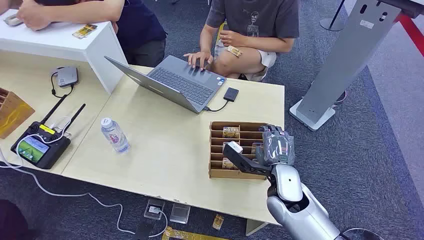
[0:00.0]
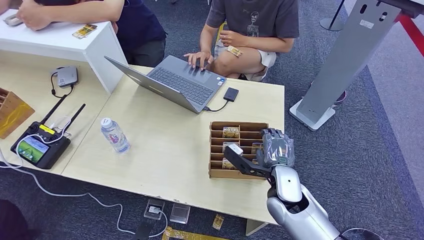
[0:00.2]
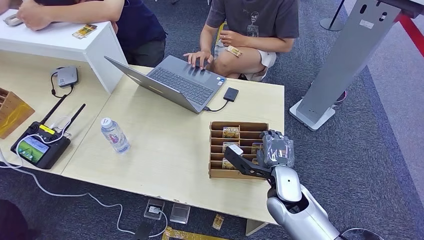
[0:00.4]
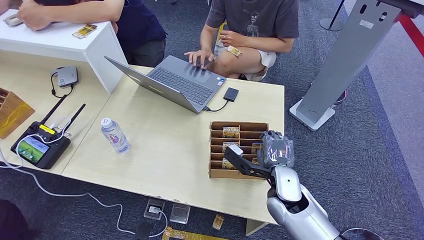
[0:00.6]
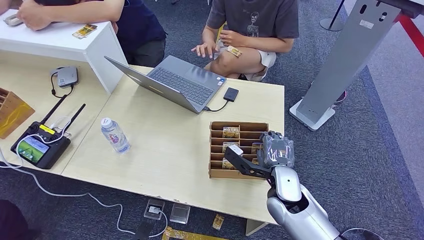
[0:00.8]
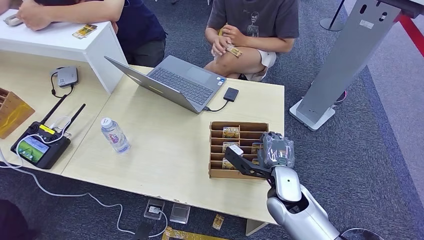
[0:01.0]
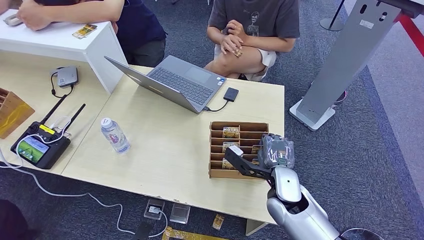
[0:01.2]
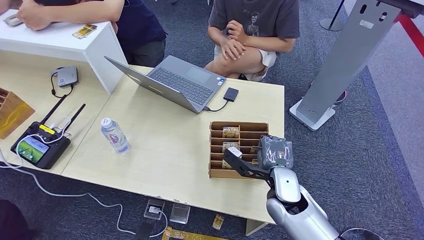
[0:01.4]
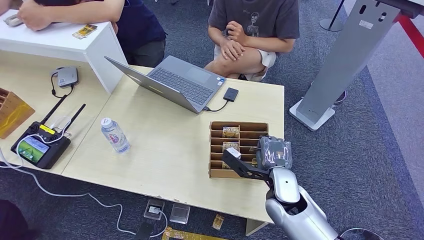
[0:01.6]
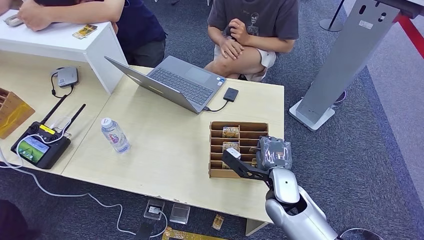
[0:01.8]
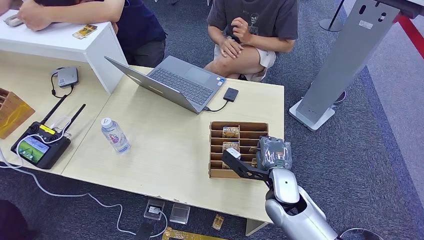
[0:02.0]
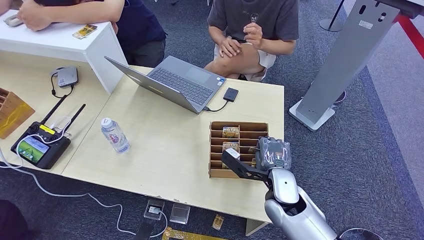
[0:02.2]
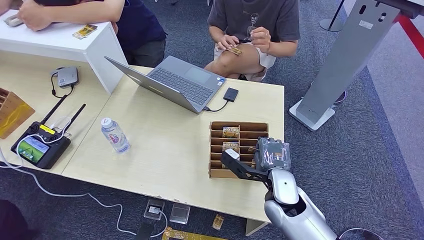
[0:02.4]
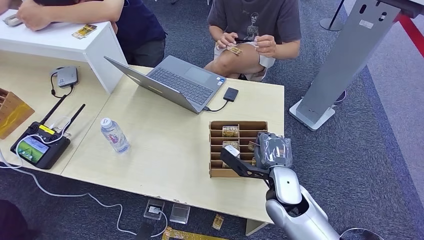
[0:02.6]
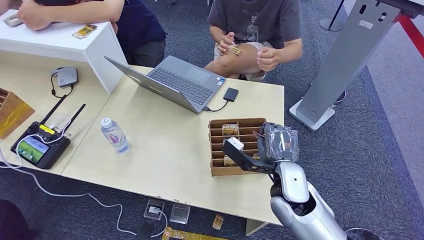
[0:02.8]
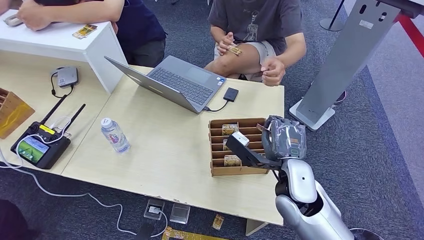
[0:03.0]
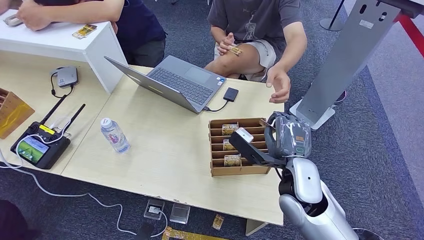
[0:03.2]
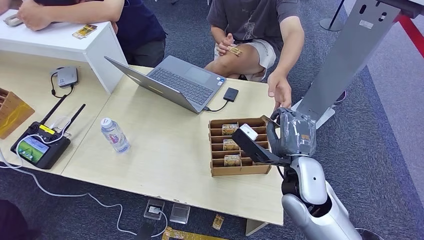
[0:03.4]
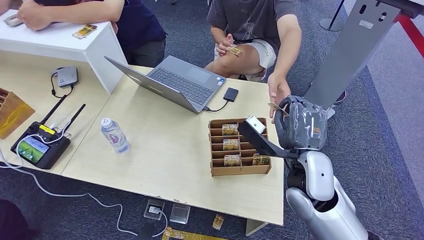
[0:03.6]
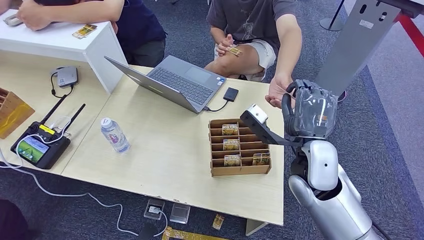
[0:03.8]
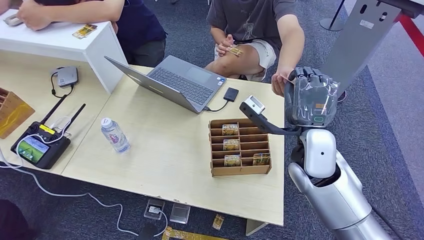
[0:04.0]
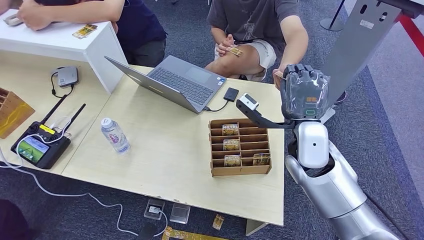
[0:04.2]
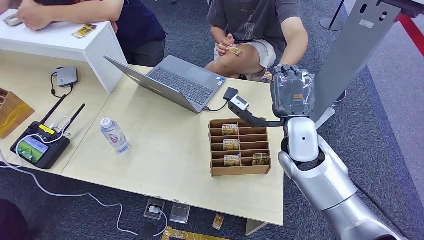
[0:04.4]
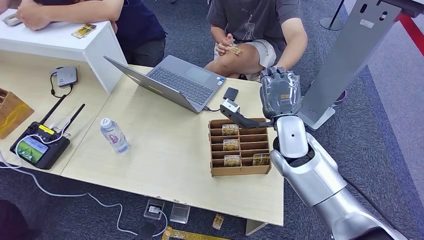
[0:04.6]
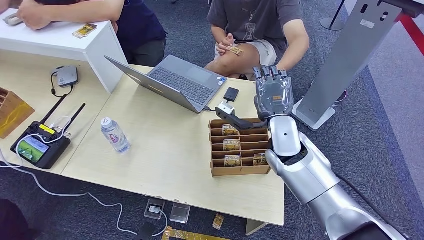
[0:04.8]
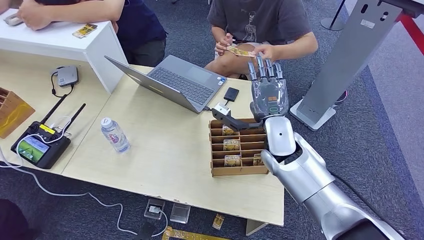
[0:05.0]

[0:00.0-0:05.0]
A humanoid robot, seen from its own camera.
Step, 0:00.0 to 0:03.0: Pick up the room card from the card holder.
Step, 0:03.4 to 0:05.0: Hand the room card to the target.
0:01.6 to 0:03.4: The right hand goes about 10 cm upward.
0:03.4 to 0:05.0: The right hand moves forward, about 10 cm.
